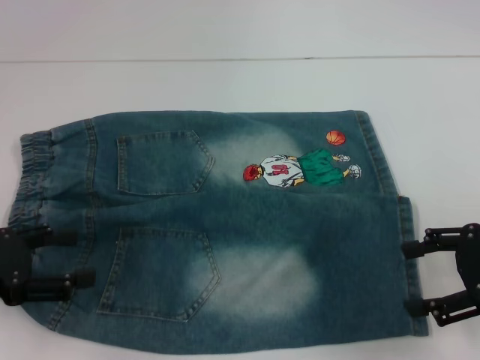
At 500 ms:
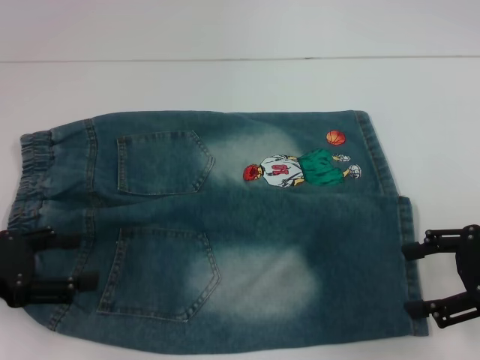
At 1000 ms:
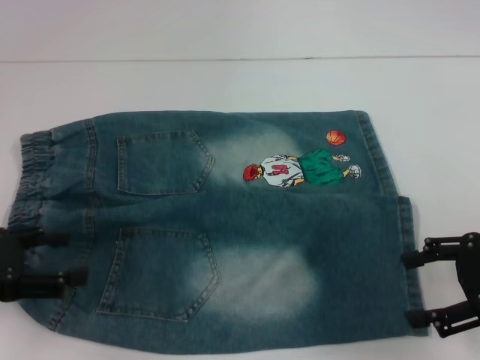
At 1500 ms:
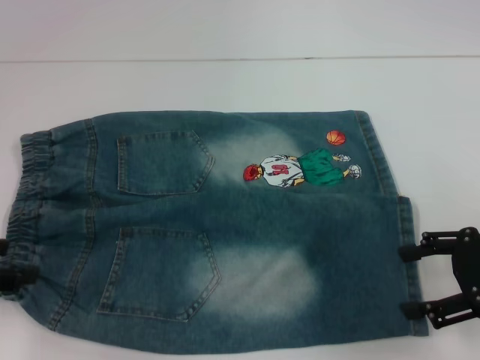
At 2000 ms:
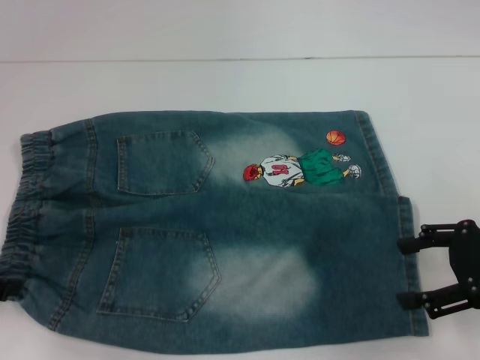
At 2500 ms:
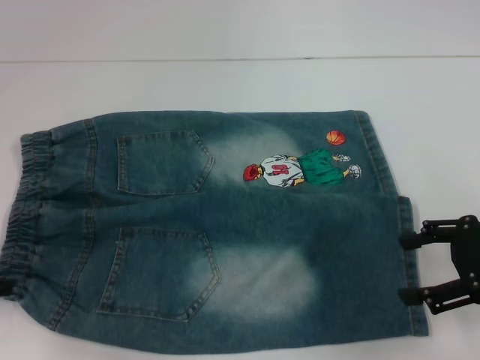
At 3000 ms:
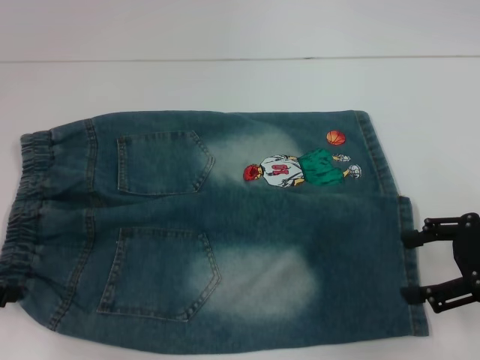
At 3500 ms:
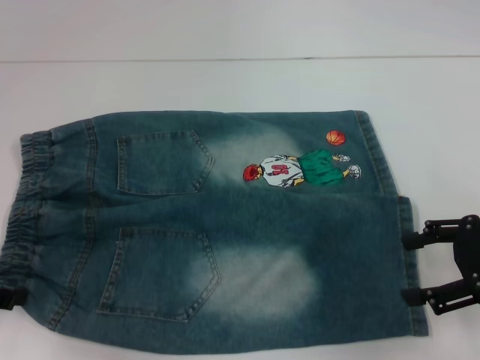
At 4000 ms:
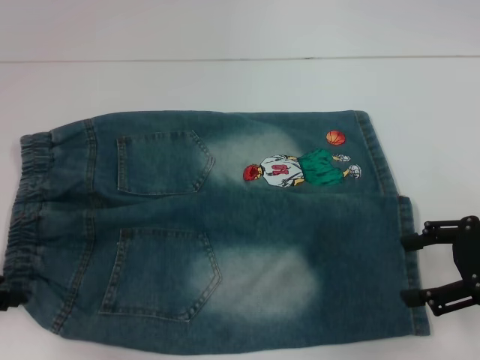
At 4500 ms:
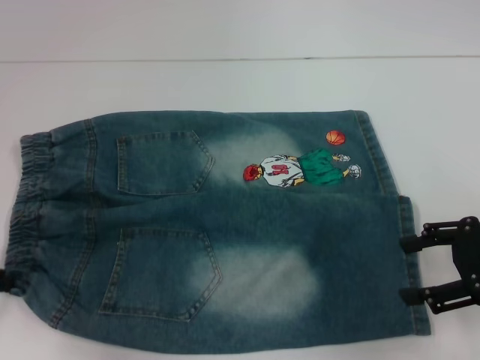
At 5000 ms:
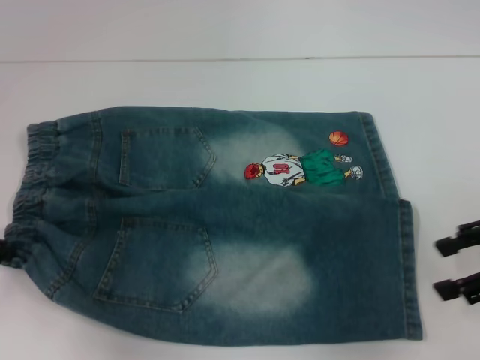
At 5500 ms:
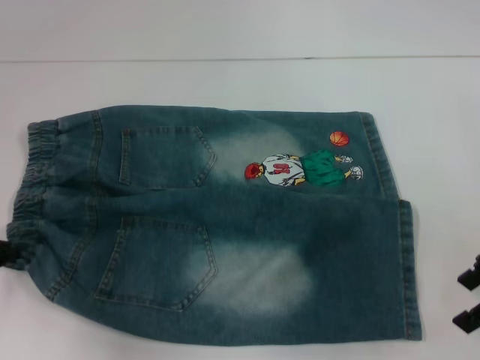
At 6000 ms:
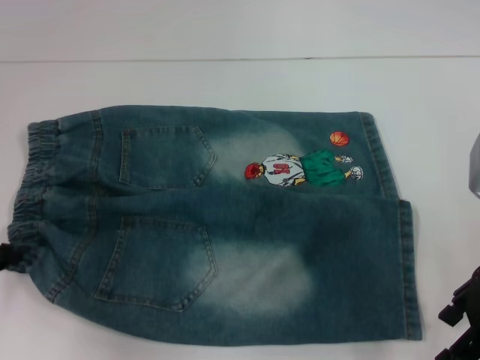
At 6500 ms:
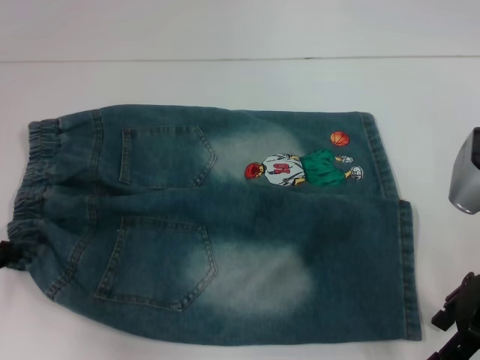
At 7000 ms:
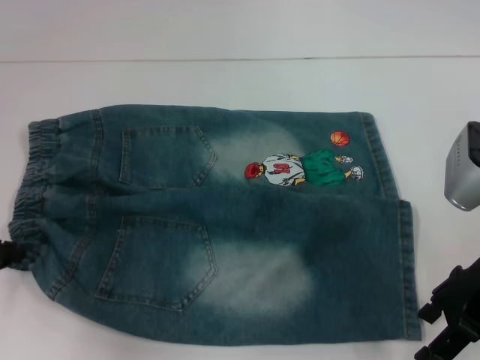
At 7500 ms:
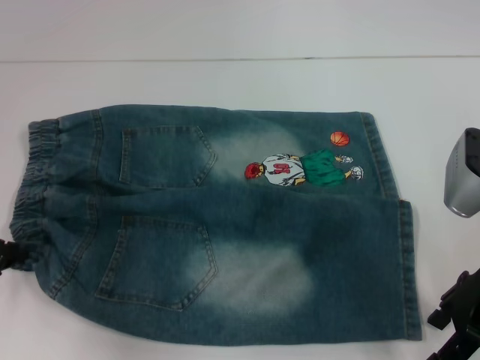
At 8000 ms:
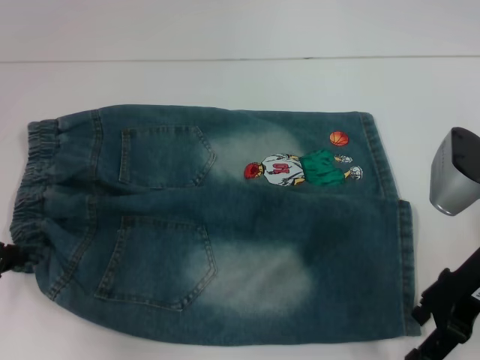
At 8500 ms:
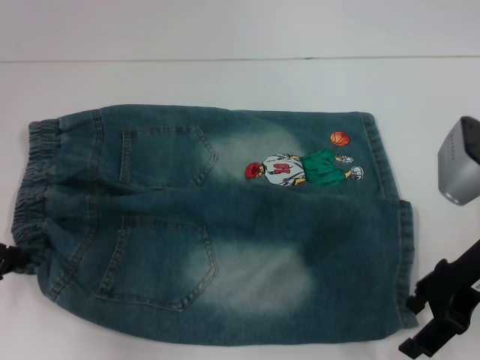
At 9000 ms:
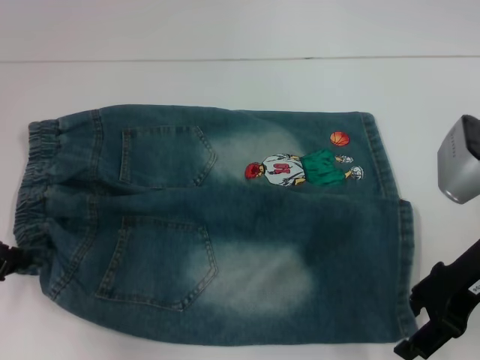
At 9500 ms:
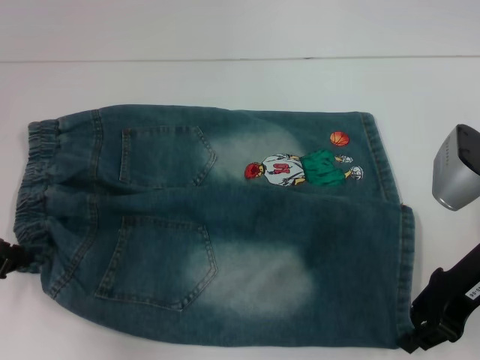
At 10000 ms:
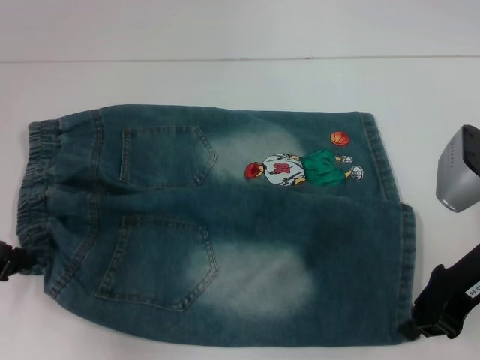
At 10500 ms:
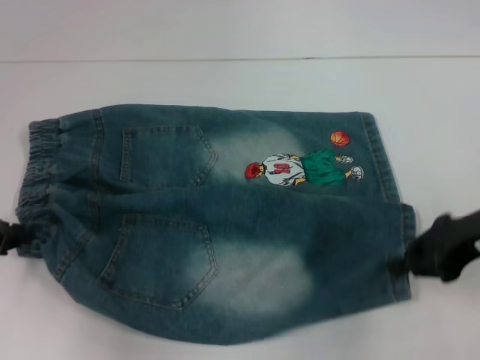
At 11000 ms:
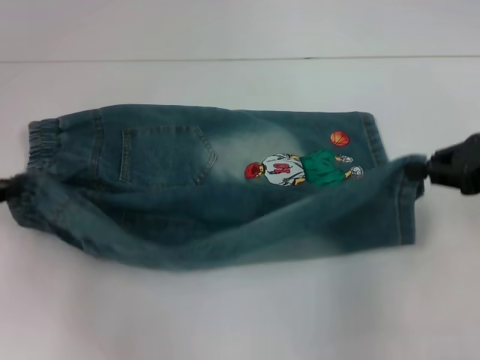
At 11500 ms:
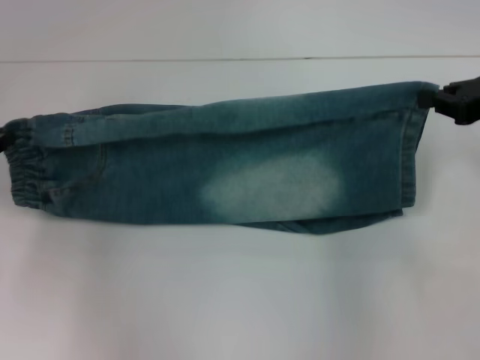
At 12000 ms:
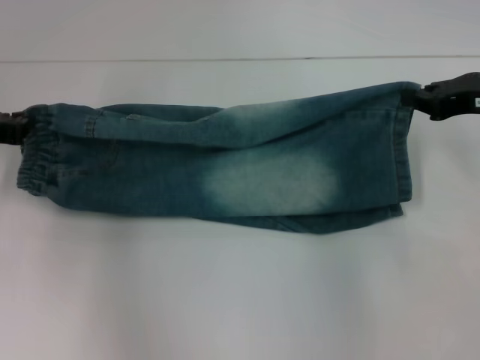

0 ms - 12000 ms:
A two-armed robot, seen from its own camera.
Step, 0 ms - 4500 ms: Hold the lower left waistband with your left hand.
Step, 5000 ms - 9500 ms: Grab the lower right pant leg with your right hand.
2000 ms - 4000 ms: The grippers make only small movements.
4000 ms - 6000 ms: The right gripper shifts roughly 5 cm to the left. Meanwhile the left gripper closes its fingers.
6000 ms - 8000 ms: There are only small adjustments of the grippers.
8000 ms - 10000 ms: The right gripper closes.
10000 ms - 12000 ms: The right gripper shifts roughly 10 cm forward and to the right. Meanwhile the left gripper moves forward, approximately 5 cm.

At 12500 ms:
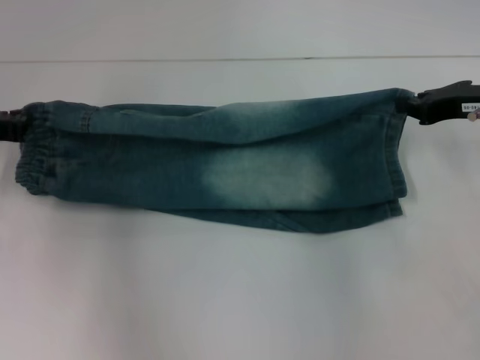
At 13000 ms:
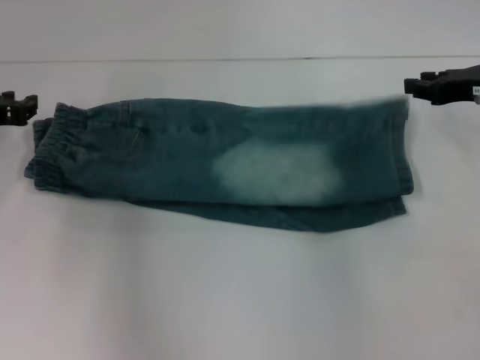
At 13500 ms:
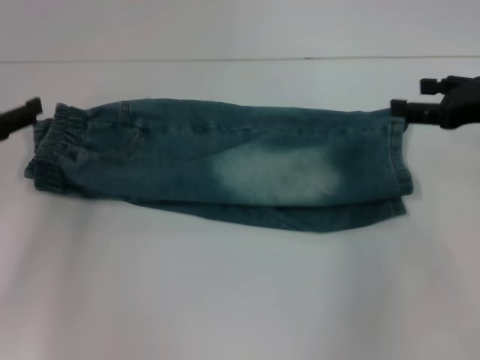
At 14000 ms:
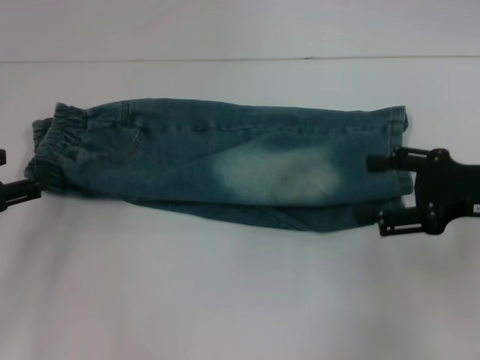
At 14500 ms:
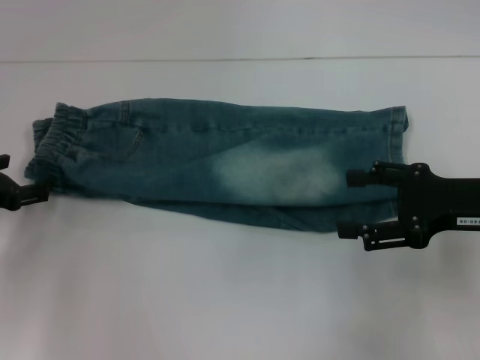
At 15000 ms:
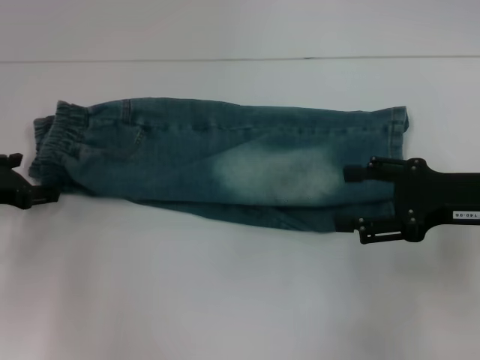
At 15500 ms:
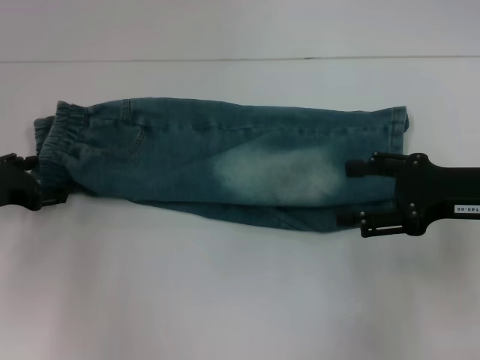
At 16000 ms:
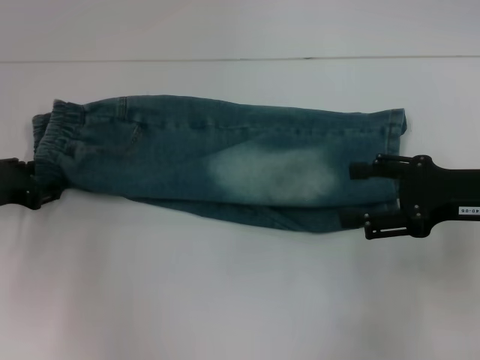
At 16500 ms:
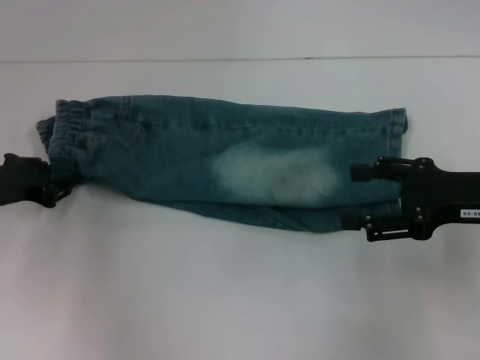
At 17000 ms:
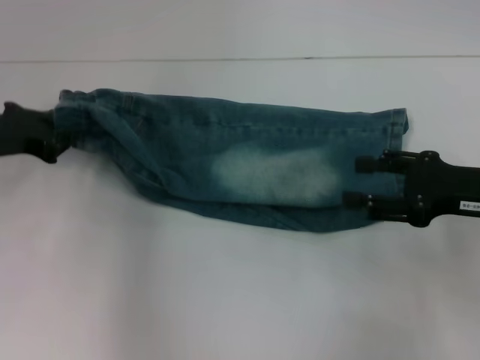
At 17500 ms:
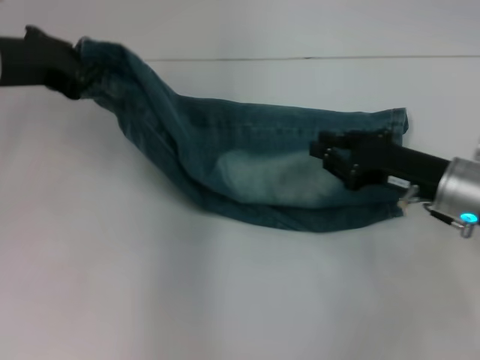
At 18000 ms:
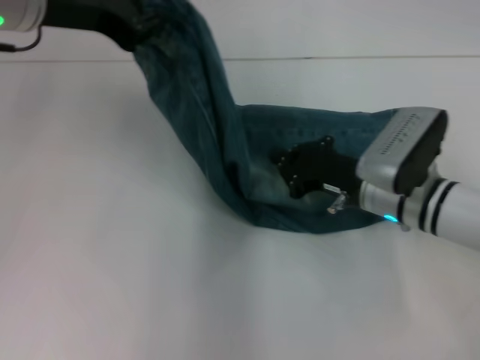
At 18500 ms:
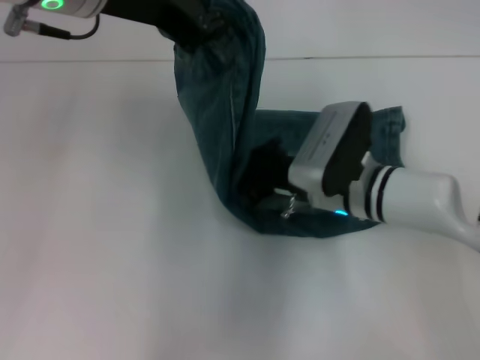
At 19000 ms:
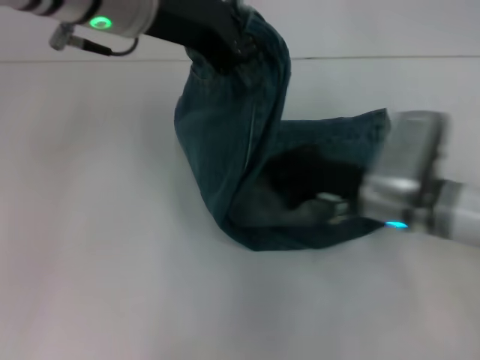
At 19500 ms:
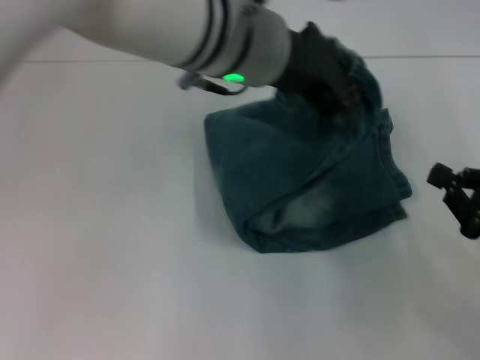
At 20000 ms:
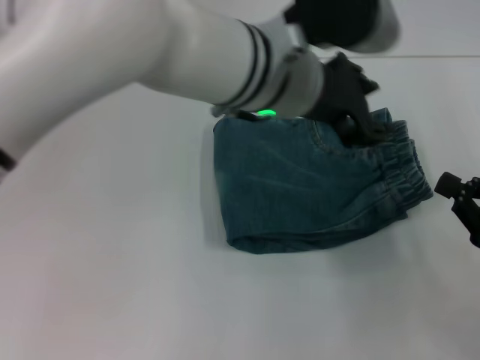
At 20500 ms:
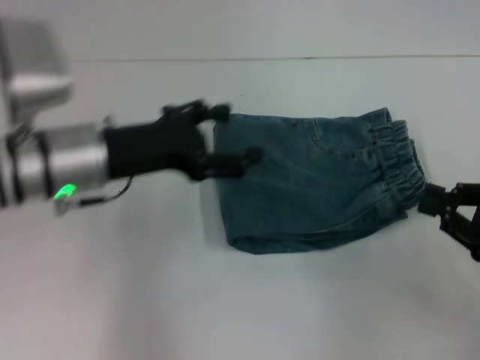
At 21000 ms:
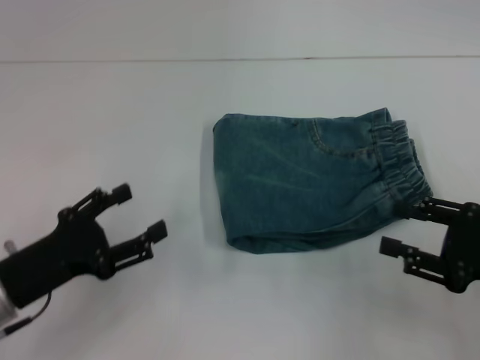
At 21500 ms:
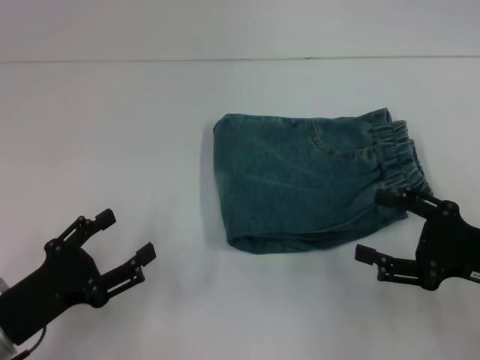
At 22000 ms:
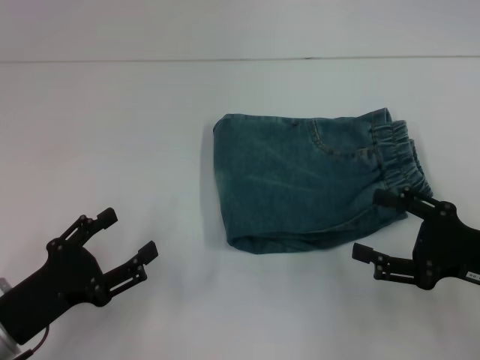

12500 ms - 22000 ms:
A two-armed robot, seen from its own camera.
Step, 13500 ms - 16000 ms: Hold the waistband with your left hand.
Step, 17000 ms - 18500 ms: Press the middle of the pants with your right hand.
Step, 19000 ms - 19500 ms: Fold to the right with your left hand.
12500 ms - 14500 ms: The right gripper heads backward, covering roughly 10 cm, and opens, while the left gripper heads downward, covering approximately 5 cm, and opens.
14500 ms - 16500 ms: The left gripper closes.
16500 ms - 18000 ms: The right gripper is displaced to the left, downward and forward by roughly 15 cm, and closes up, while the left gripper shifts roughly 25 cm upward and to the right, and closes up.
18000 ms - 20000 ms: The right gripper heads to the right and backward, covering some 20 cm. Meanwhile the left gripper shifts some 20 cm to the right, and opens.
20000 ms - 22000 ms: The left gripper goes roughly 35 cm to the left, downward and backward, and opens. Meanwhile the right gripper opens its fingers.

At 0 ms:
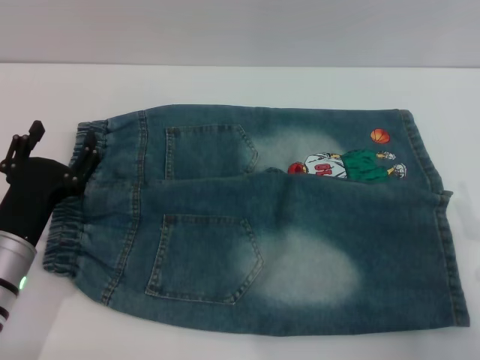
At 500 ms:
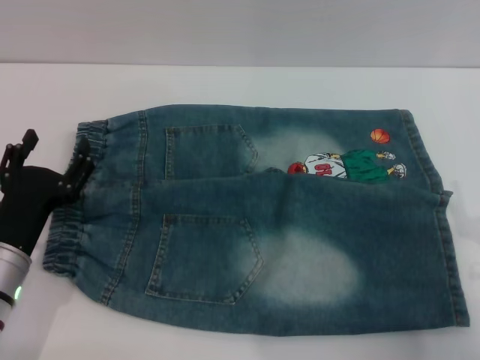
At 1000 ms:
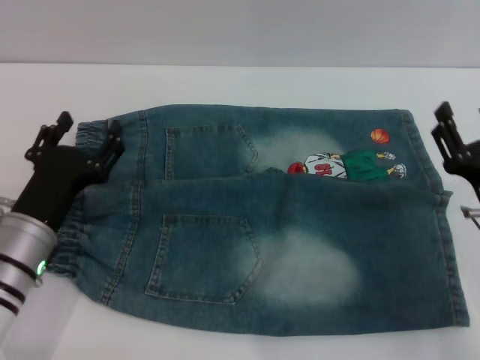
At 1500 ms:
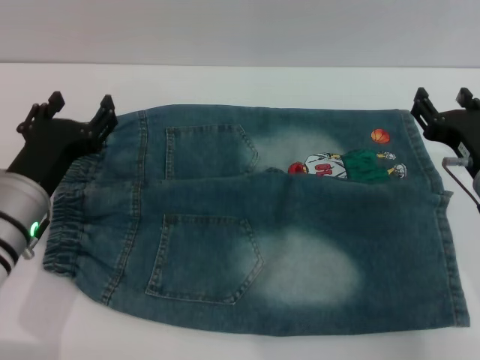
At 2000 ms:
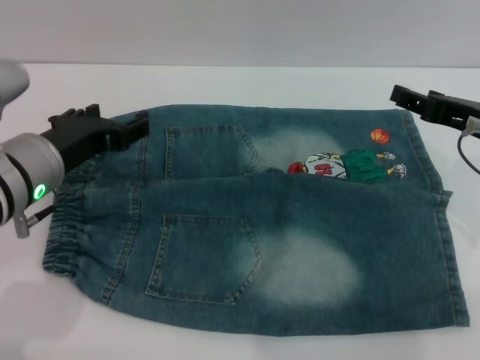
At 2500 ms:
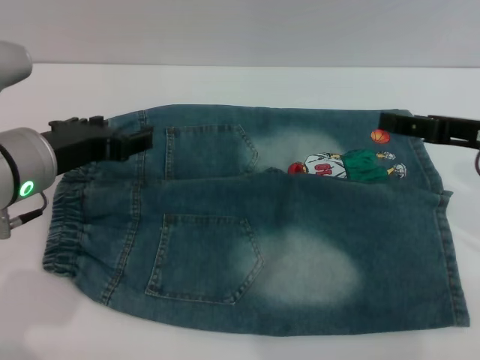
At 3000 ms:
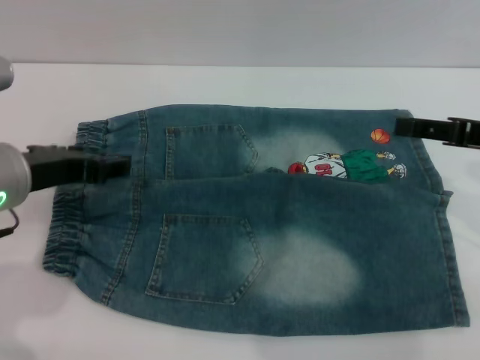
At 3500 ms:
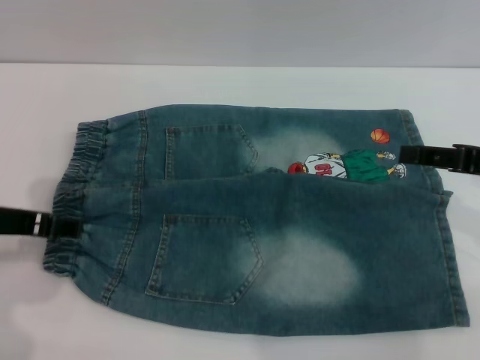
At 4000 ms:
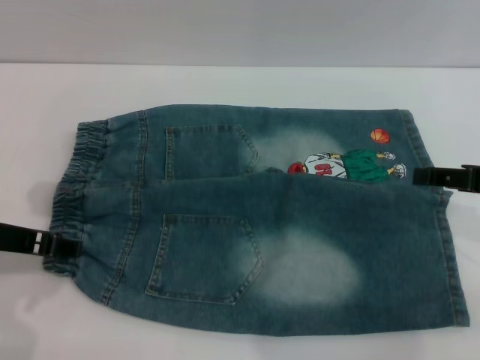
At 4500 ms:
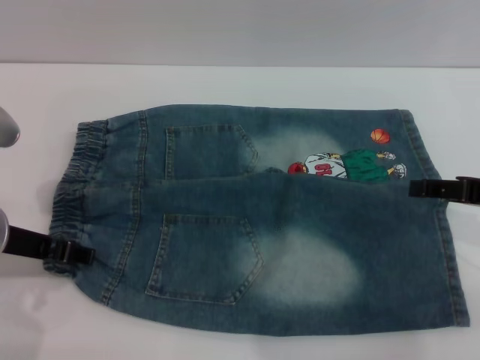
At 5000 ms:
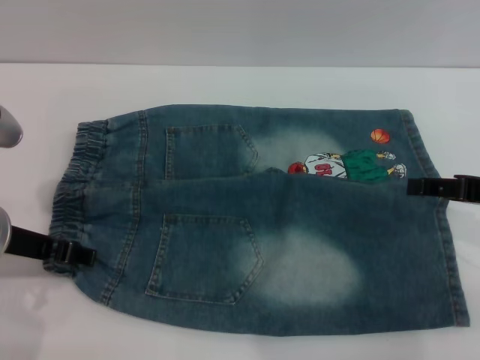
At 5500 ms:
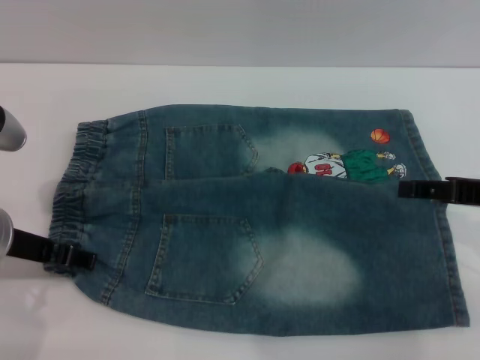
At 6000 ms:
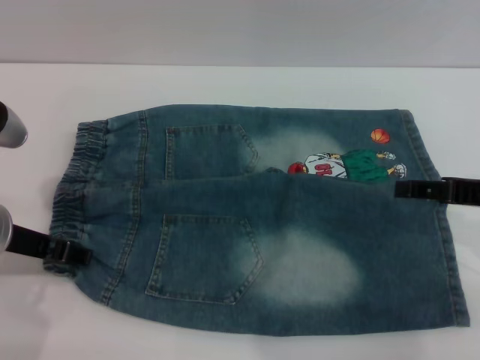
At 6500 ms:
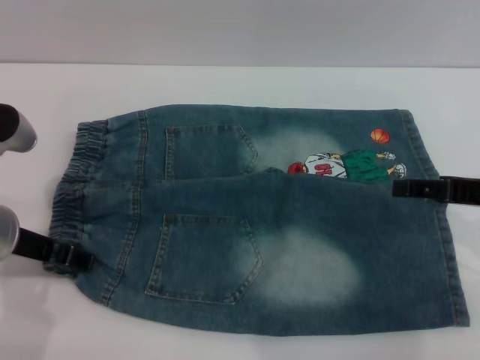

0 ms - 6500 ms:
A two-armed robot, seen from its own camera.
0 ms - 2000 ms: The left gripper heads upward, covering approximately 10 cm. Meanwhile the right gripper is displaced upward and forward by about 15 cm.
2000 ms - 4500 ms: The right gripper ends up some 5 cm from where it was.
4500 ms - 6500 ms: Both grippers stay put.
